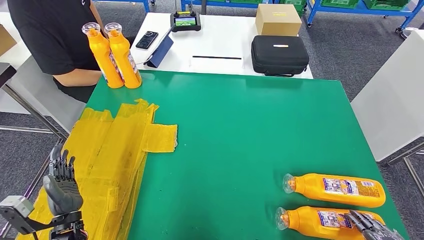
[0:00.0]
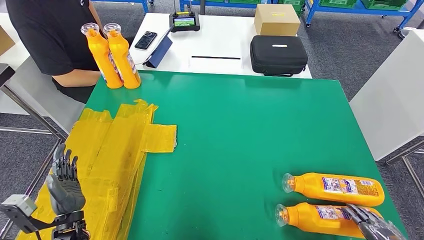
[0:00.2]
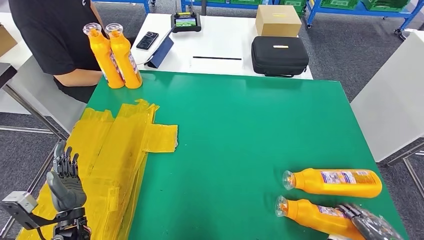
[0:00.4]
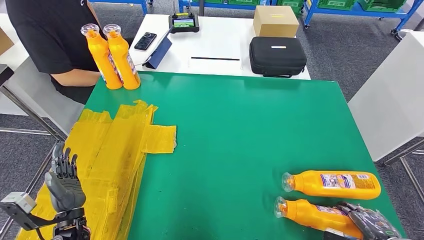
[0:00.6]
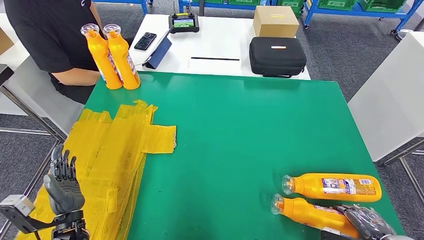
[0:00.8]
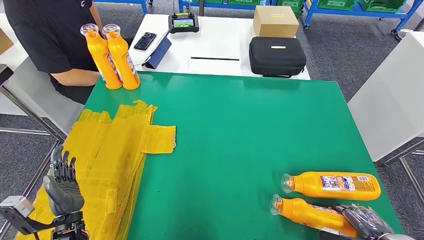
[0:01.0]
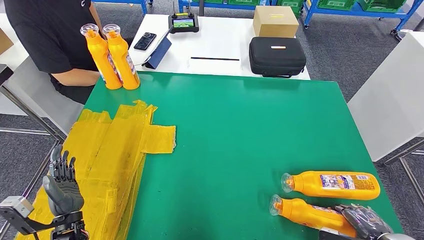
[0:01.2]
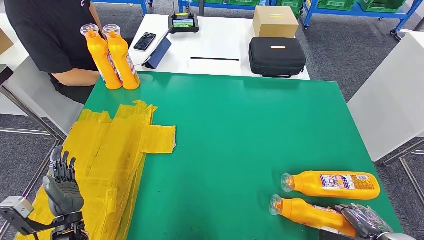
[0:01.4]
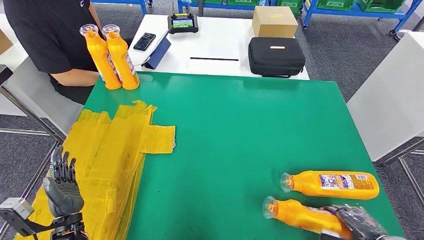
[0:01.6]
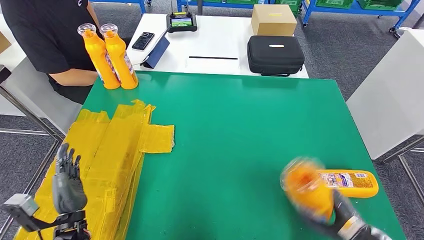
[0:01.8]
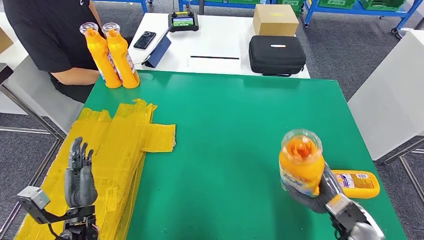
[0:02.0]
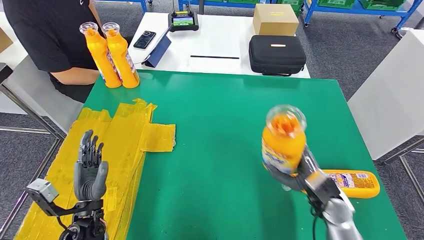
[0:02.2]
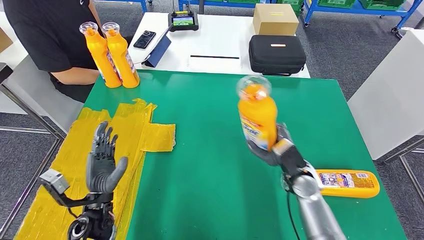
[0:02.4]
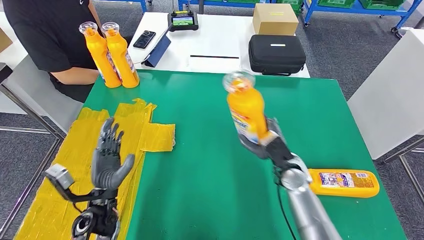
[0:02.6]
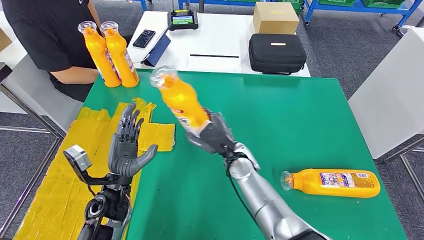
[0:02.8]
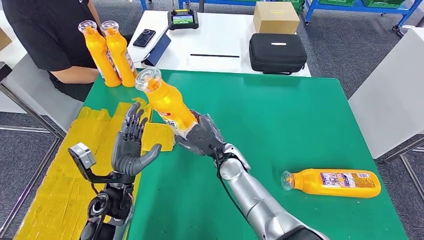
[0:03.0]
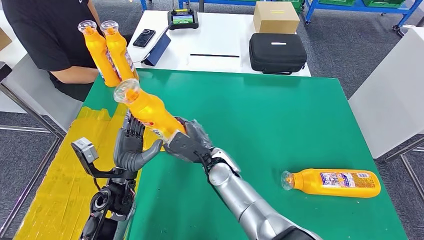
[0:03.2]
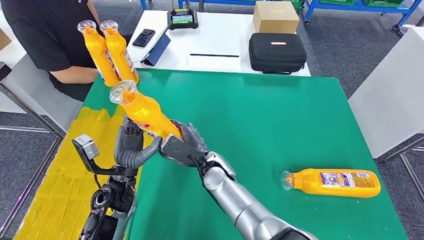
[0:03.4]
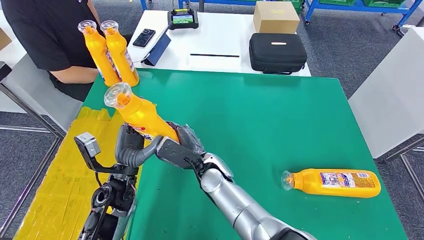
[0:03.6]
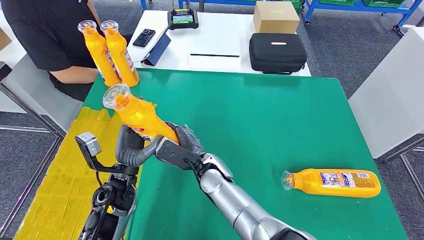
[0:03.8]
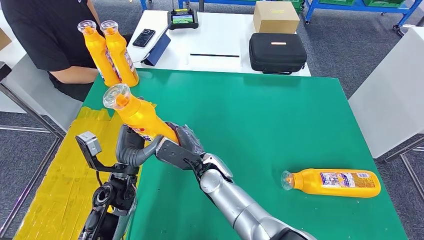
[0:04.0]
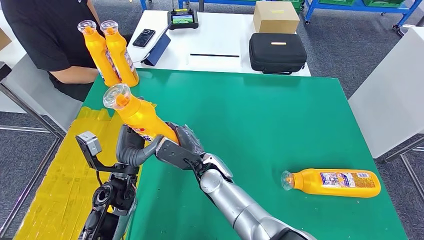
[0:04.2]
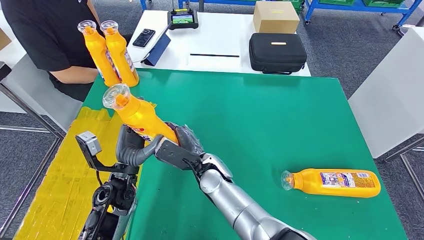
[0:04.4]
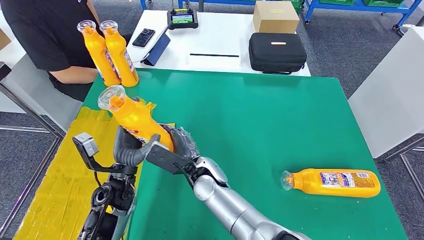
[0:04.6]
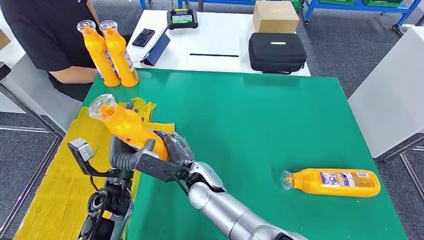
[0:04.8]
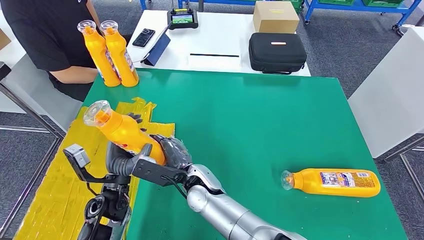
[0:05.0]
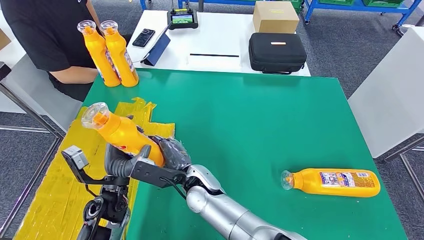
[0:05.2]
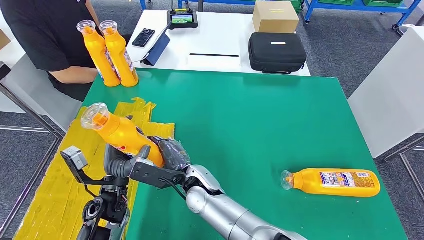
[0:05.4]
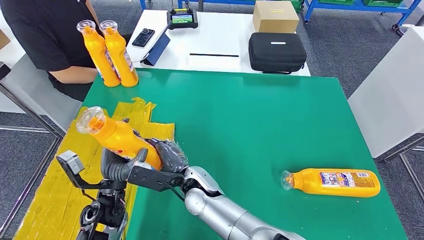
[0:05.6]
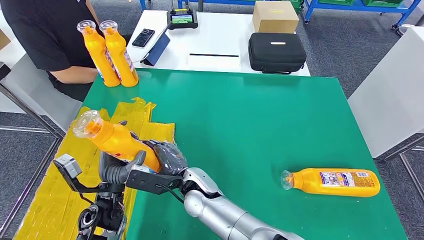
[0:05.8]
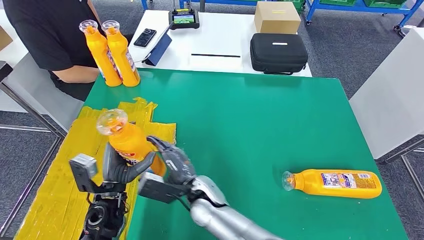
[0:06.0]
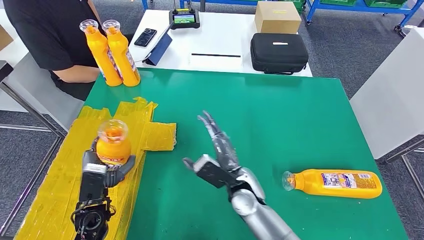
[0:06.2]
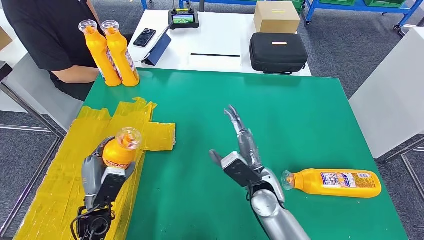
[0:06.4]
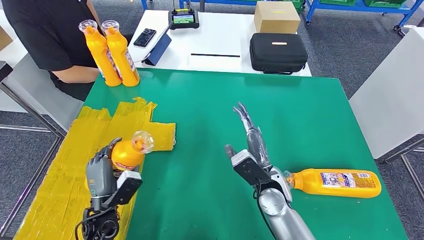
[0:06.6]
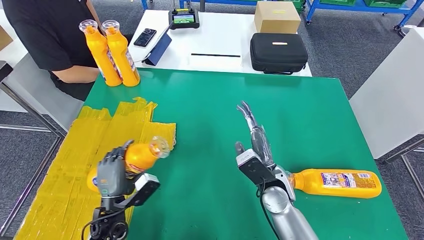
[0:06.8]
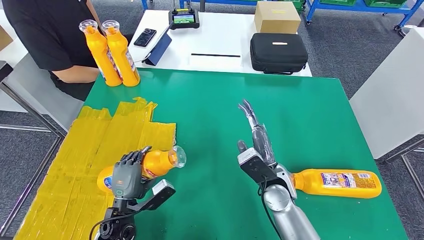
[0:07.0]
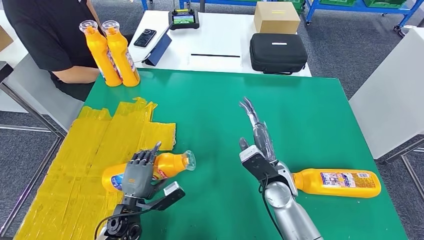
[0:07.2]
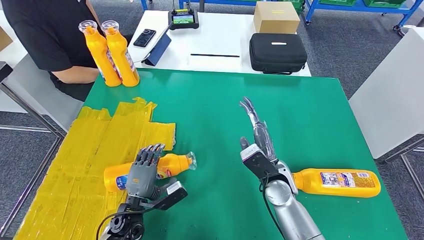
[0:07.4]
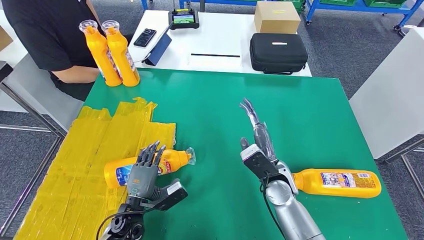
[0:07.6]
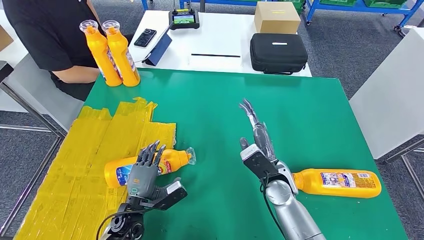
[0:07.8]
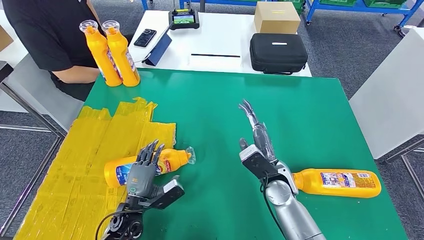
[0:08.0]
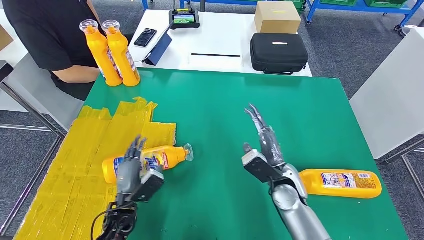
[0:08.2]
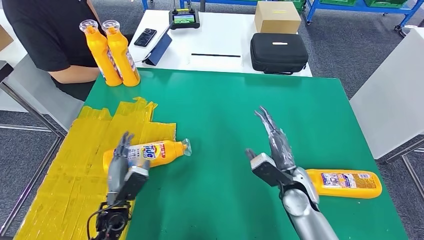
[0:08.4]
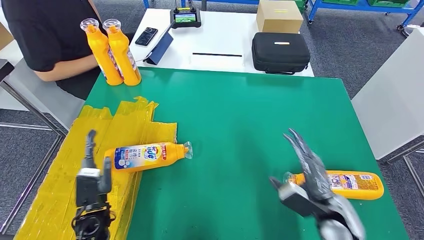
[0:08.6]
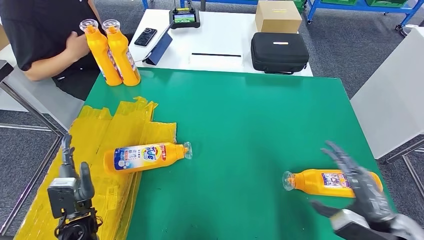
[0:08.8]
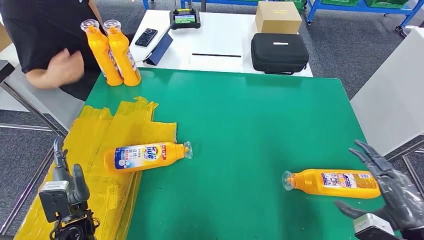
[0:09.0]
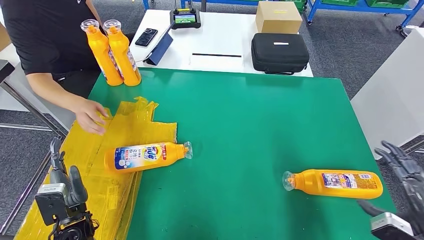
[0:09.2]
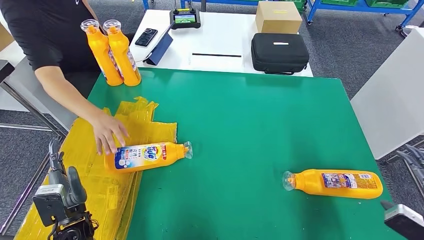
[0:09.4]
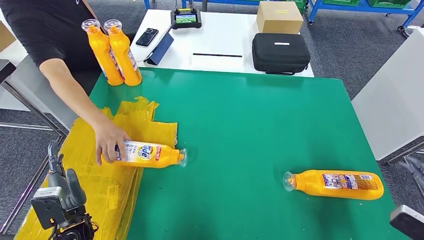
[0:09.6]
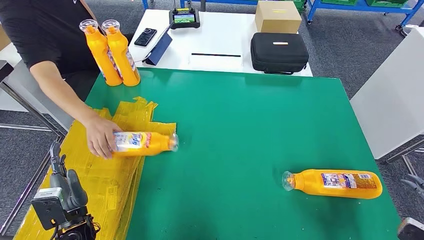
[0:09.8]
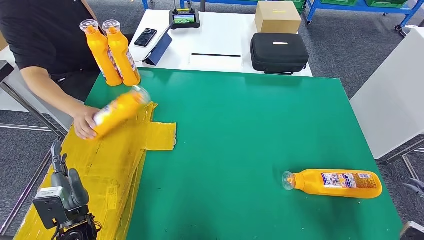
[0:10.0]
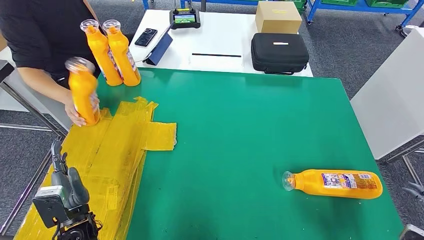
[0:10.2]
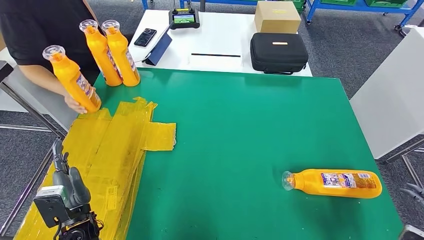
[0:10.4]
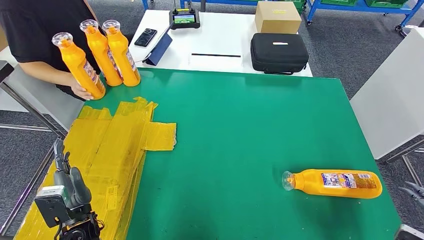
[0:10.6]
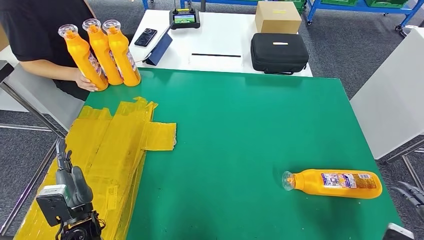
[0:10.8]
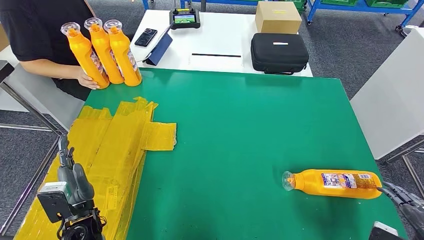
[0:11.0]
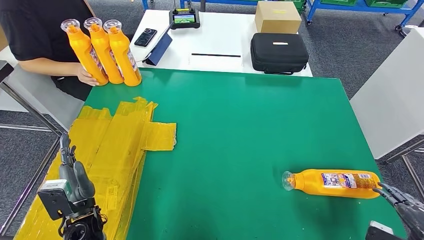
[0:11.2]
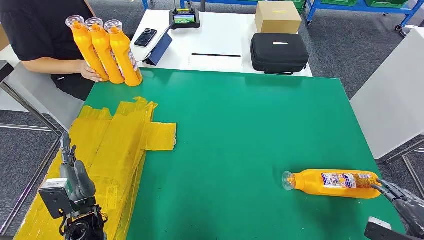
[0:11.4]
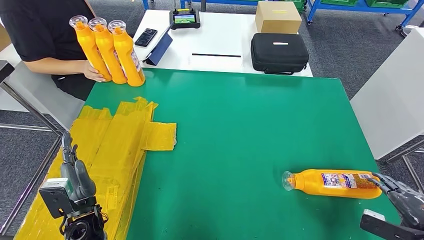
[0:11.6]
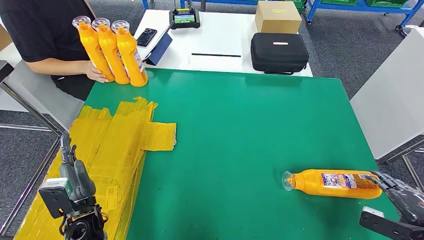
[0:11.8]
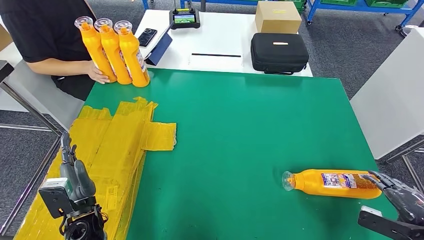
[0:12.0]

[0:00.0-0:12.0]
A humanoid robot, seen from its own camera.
Step, 0:00.2 to 0:02.4: Pick up the bottle from the table.
Step, 0:04.0 to 0:08.0: Flip the bottle to face forward.
0:00.0 to 0:01.6: The right hand is displaced forward by approximately 5 cm.
0:03.0 to 0:04.4: The right hand heads to the left, covering some 5 cm.
0:04.4 to 0:06.0: The left hand ends up approximately 5 cm from where it was.
0:06.0 to 0:07.6: The left hand is displaced downward by roughly 10 cm, while the right hand is displaced to the right by roughly 20 cm.
0:09.0 to 0:10.4: The right hand travels to the right and backward by approximately 15 cm.
0:10.4 to 0:12.0: The right hand travels forward and downward by some 10 cm.

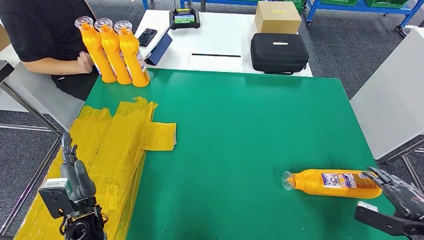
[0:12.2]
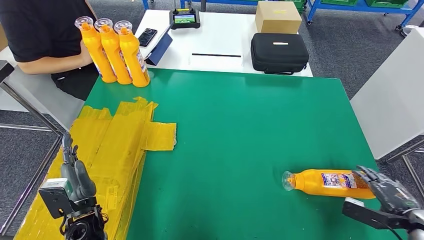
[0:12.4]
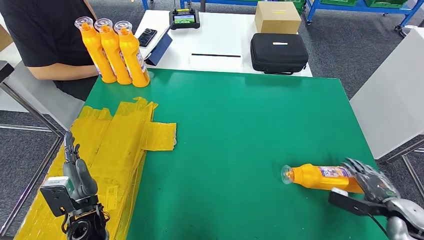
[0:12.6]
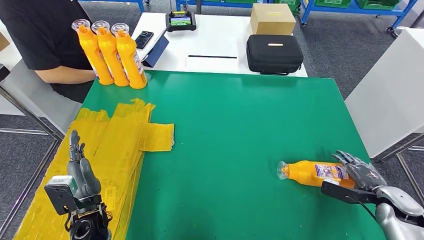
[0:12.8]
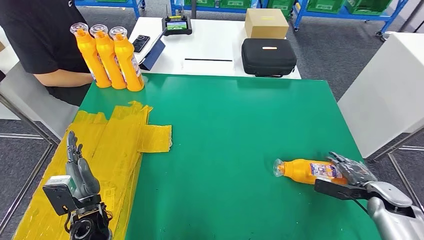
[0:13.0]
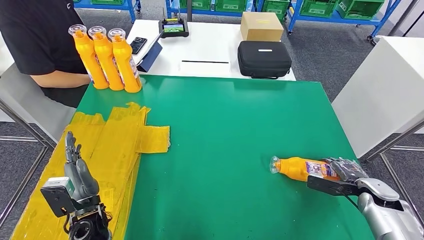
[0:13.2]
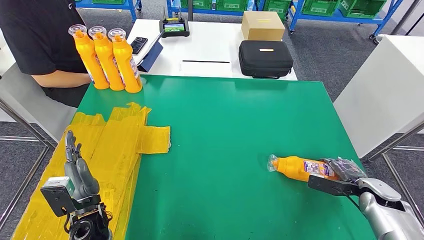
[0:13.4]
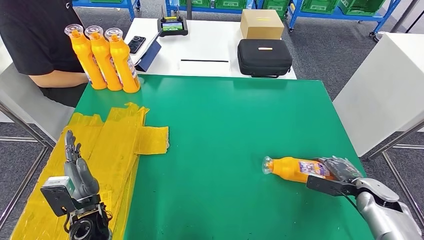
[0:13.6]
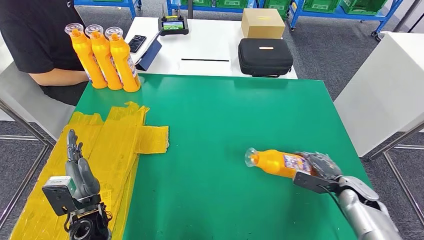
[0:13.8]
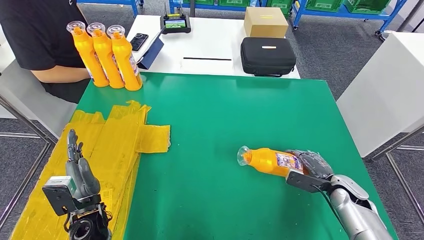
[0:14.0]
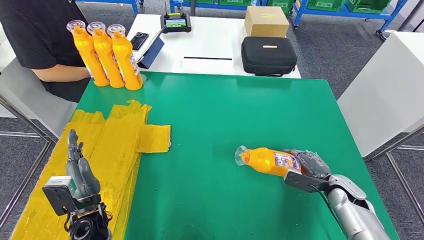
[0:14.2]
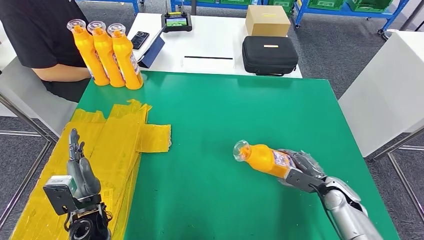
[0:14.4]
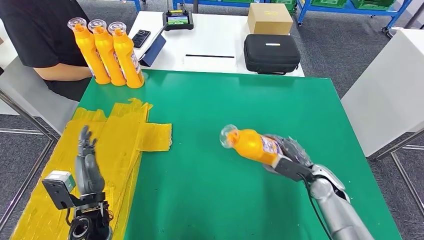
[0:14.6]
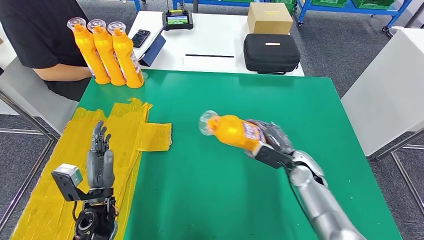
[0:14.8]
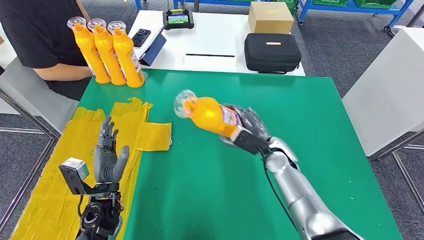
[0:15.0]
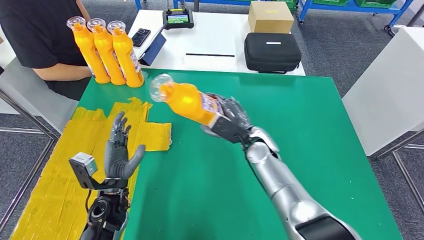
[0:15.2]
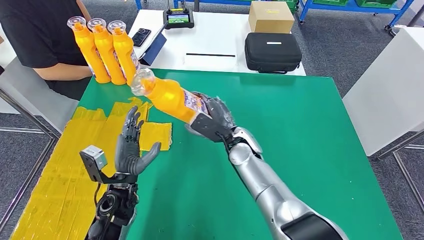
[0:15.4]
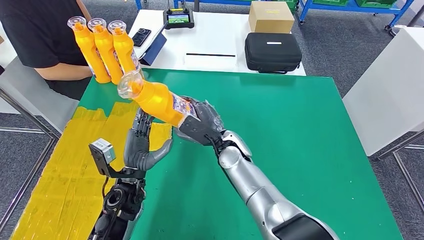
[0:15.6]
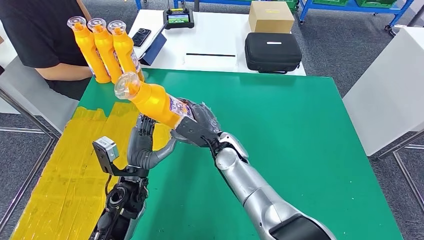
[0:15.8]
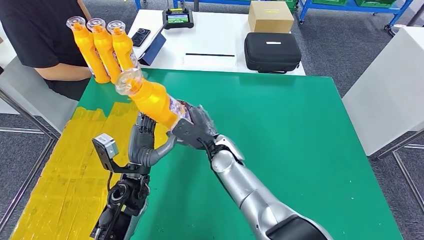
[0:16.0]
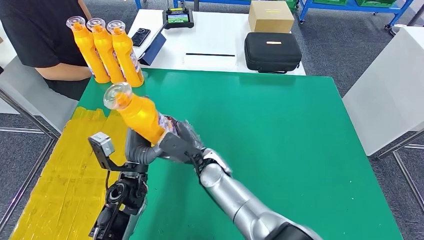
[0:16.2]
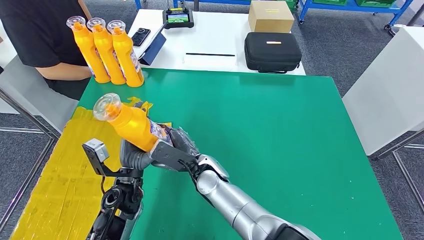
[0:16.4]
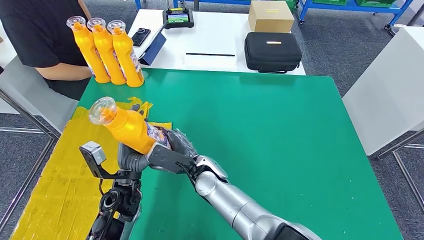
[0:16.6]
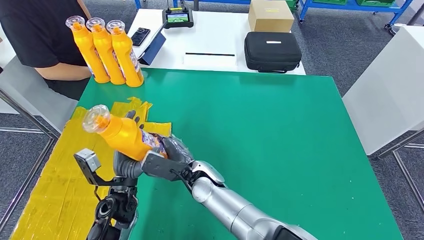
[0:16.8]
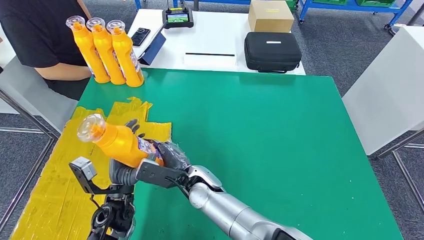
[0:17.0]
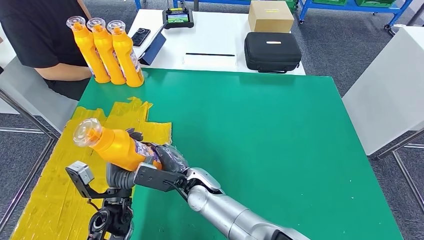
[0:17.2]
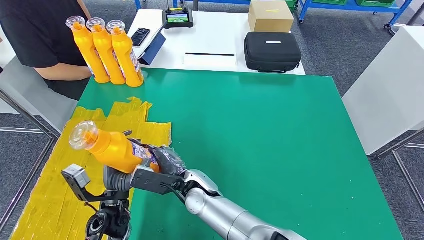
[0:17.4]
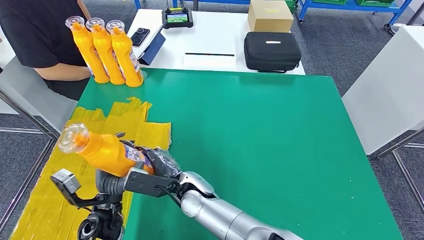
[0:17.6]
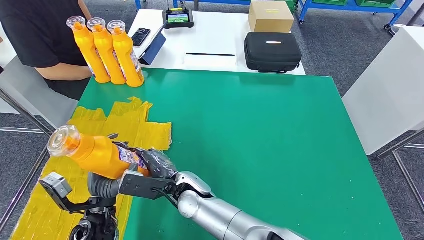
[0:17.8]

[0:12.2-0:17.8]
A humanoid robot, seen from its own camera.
Step, 0:13.4 to 0:16.2: Pick up the bottle from the table.
0:16.4 to 0:17.8: The right hand changes place by roughly 5 cm. The left hand heads backward and to the left, covering approximately 10 cm.
